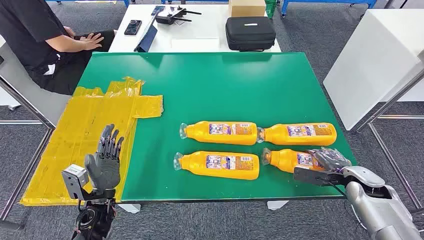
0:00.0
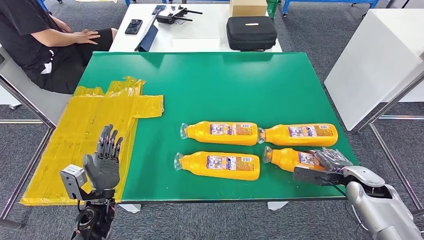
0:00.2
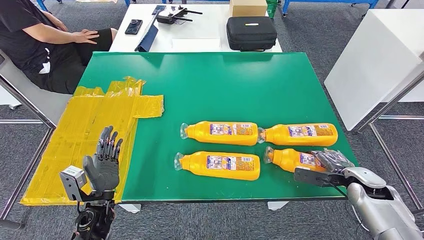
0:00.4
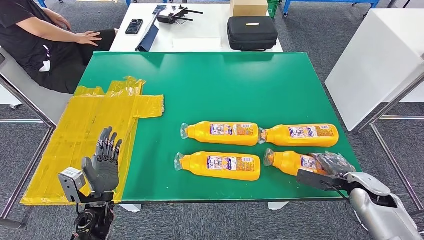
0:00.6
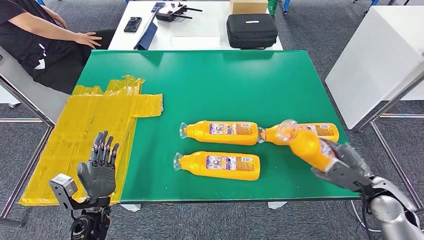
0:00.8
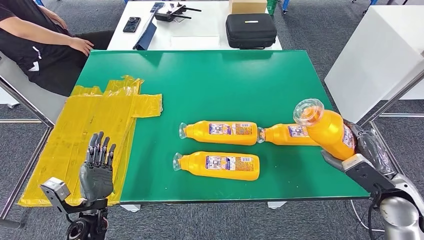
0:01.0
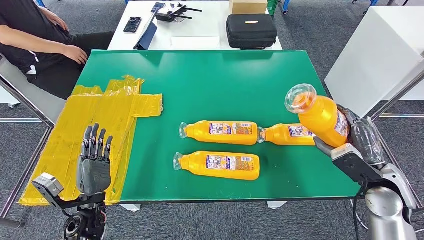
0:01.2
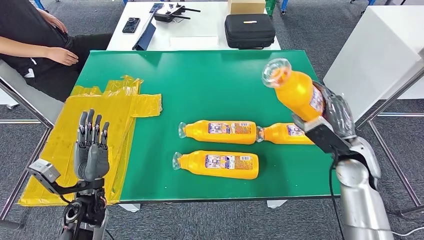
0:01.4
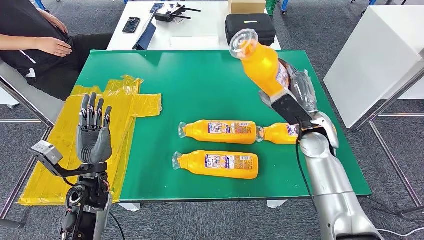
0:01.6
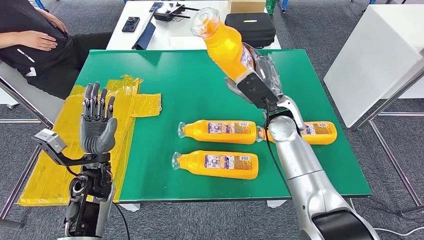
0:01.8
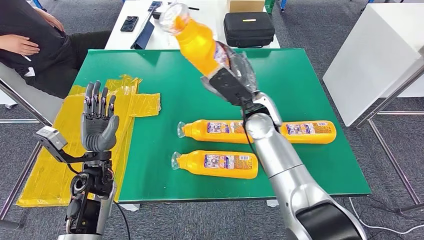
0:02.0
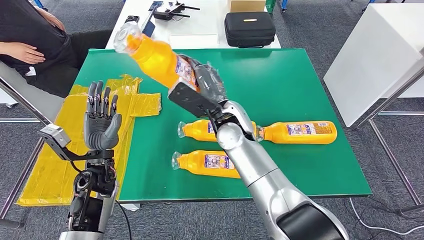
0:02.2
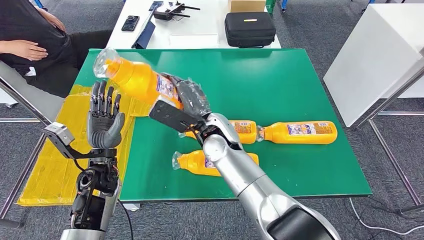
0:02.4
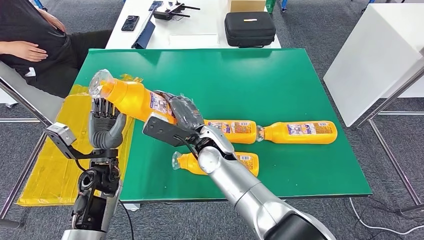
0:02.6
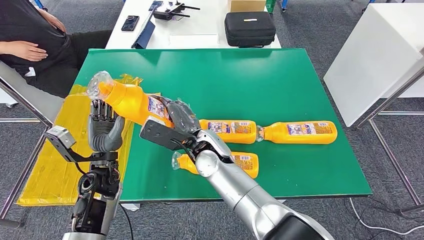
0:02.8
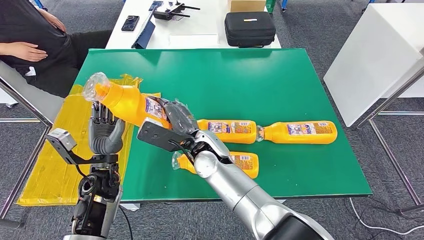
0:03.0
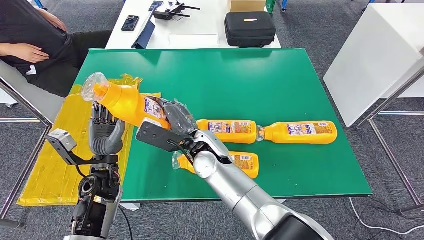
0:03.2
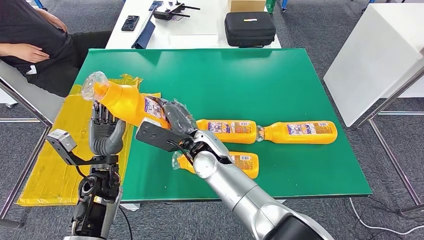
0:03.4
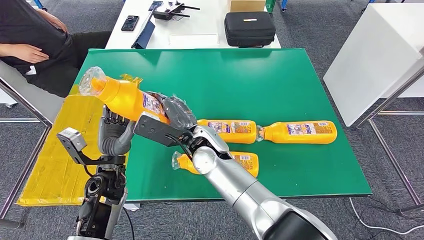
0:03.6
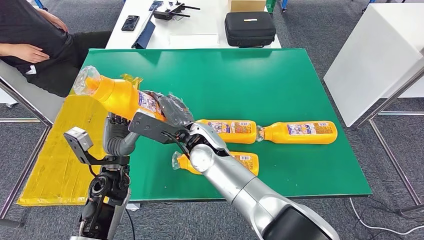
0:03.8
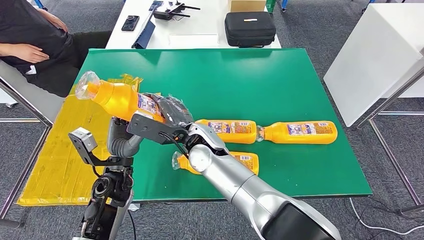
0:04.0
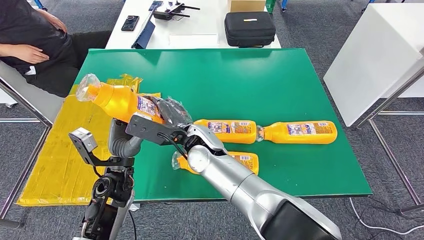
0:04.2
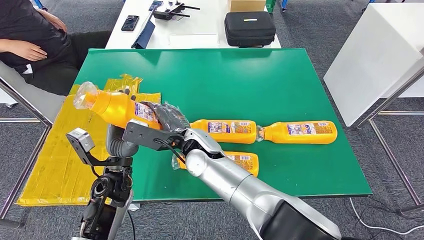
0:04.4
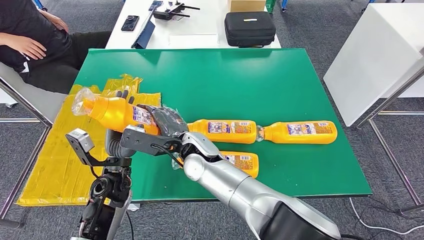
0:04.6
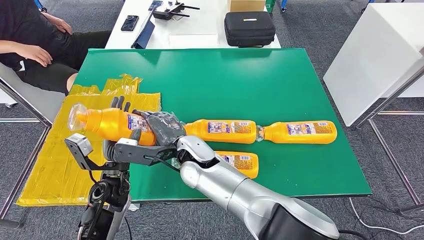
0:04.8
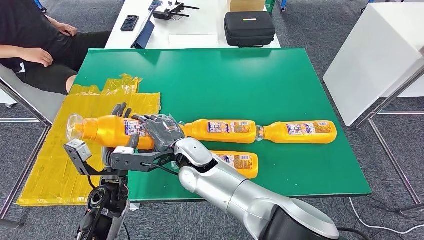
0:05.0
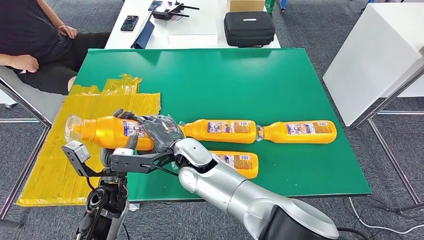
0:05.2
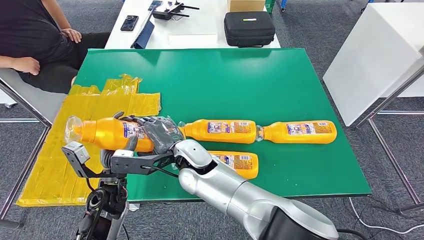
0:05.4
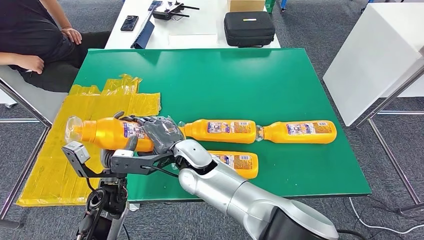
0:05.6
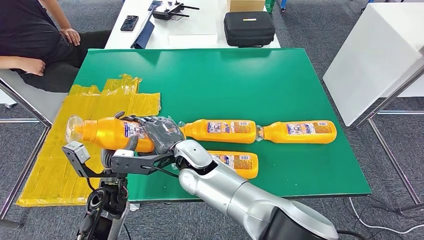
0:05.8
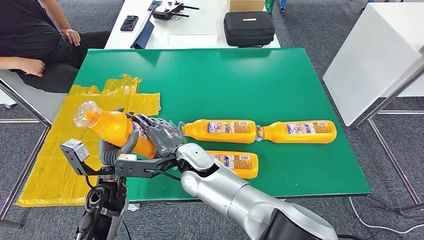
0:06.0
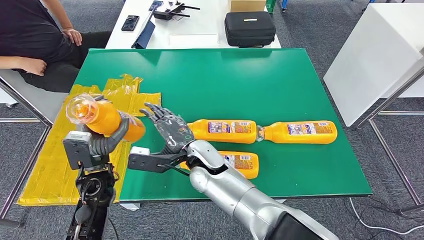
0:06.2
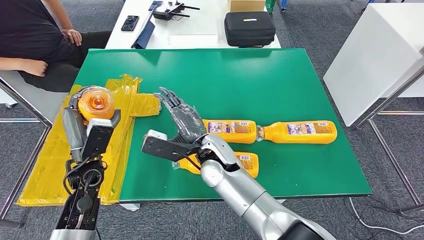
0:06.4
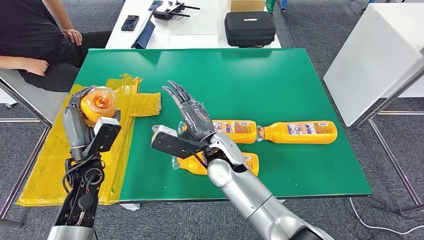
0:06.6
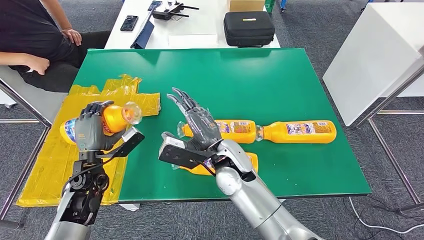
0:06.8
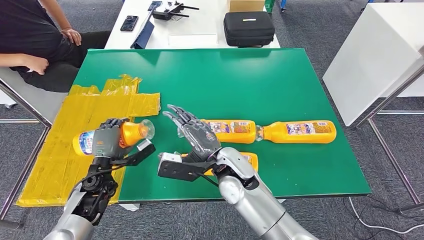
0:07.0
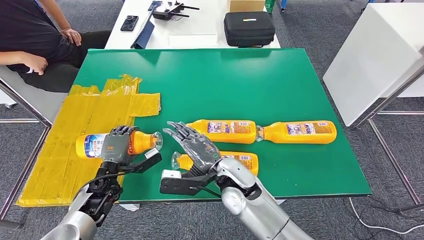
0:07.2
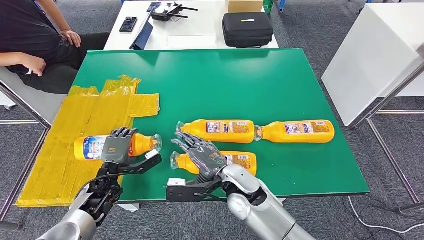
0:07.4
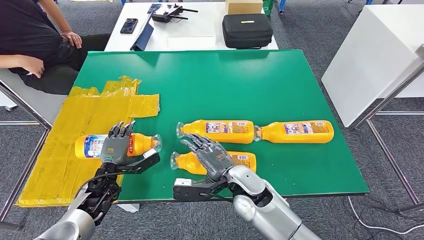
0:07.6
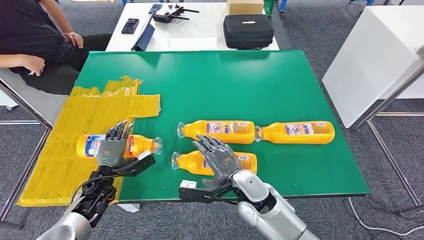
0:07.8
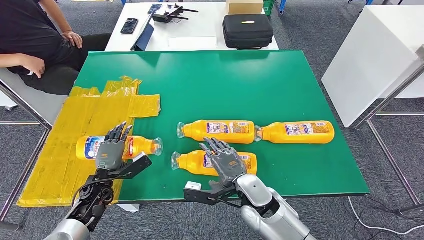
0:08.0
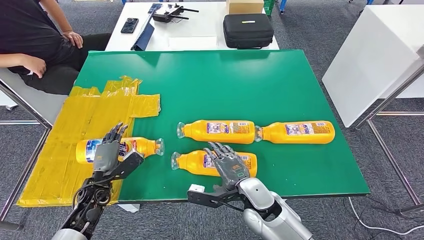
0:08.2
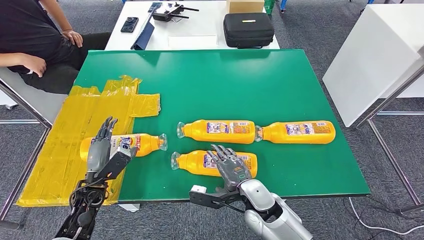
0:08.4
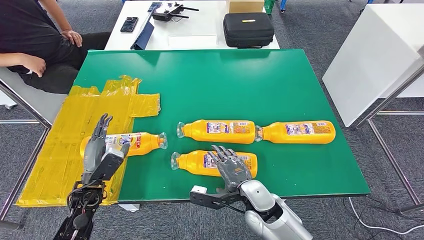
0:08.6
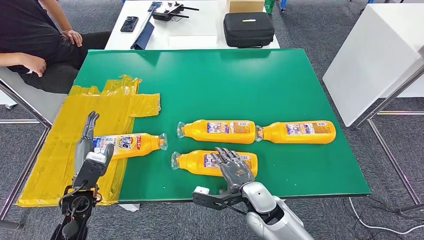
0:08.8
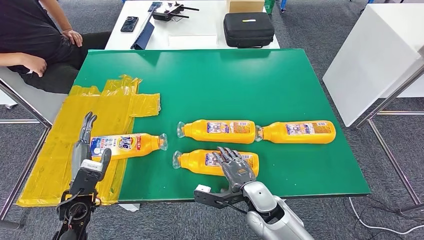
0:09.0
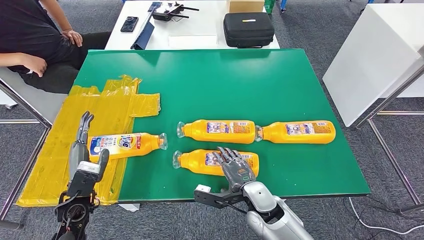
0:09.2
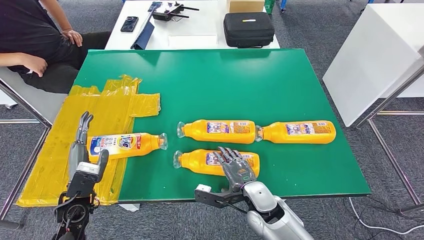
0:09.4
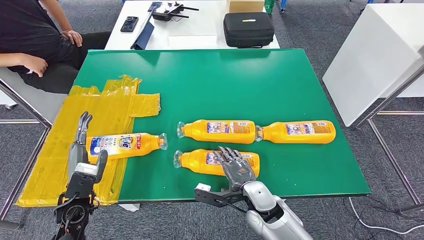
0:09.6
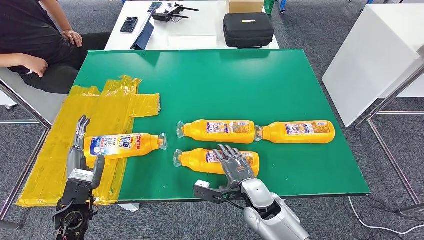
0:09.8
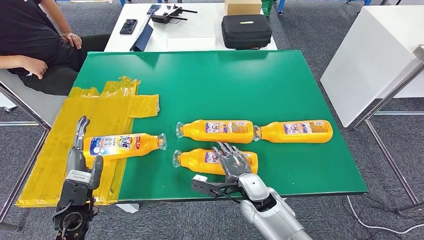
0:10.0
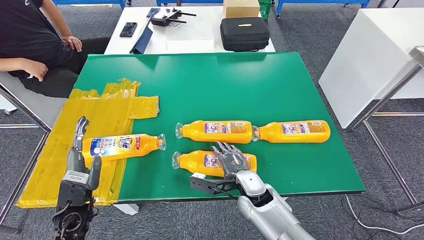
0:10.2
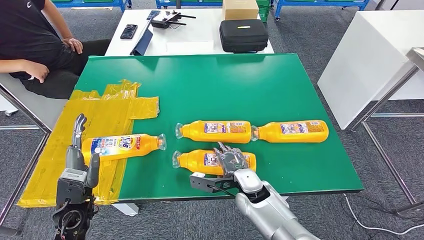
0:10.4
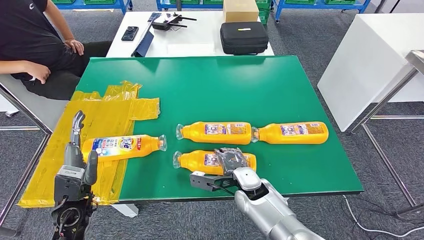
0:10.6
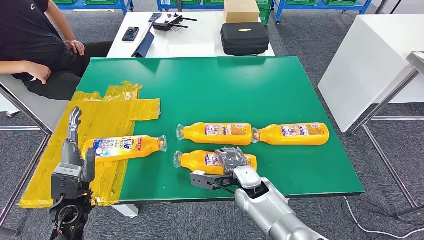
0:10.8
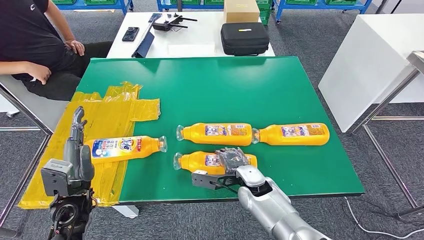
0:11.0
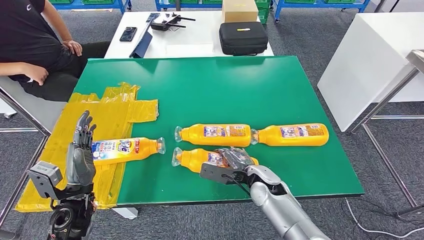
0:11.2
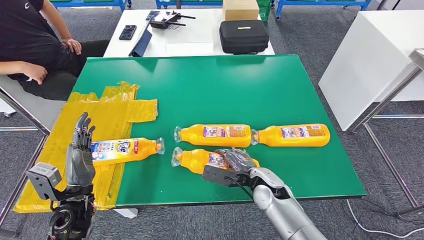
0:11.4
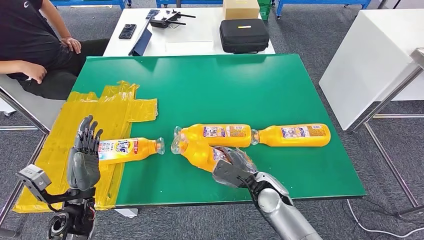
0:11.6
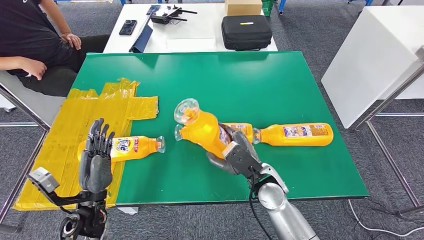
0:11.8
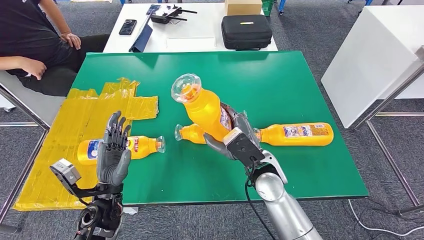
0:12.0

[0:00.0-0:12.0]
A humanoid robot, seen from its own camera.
Step, 0:00.0 to 0:01.8: Take the fast-moving consumer goods bottle from the table.
Step, 0:02.6 to 0:08.4: Flip the fast-moving consumer goods bottle to the front side.
Step, 0:09.2 to 0:11.8: Pick up the fast-moving consumer goods bottle from the table.
0:03.0 to 0:04.4: There are only small adjustments of the hands.
0:07.6 to 0:09.0: The right hand shifts roughly 5 cm downward; the left hand goes roughly 10 cm backward and upward.

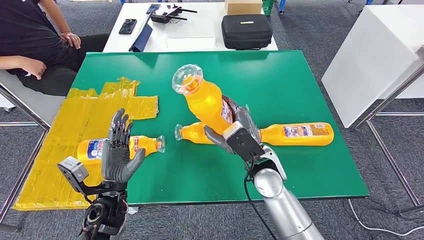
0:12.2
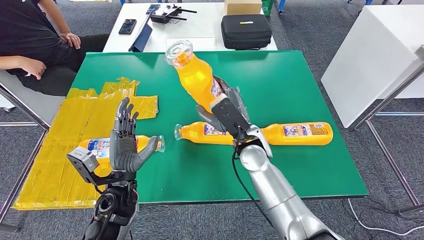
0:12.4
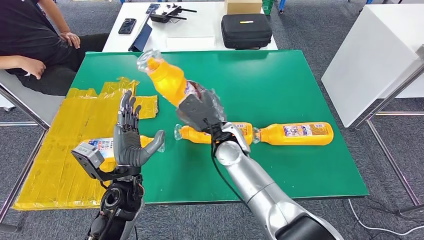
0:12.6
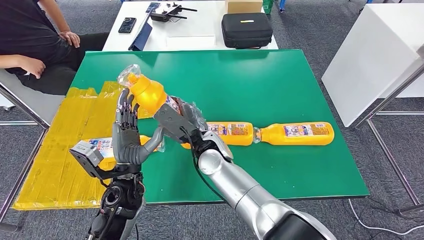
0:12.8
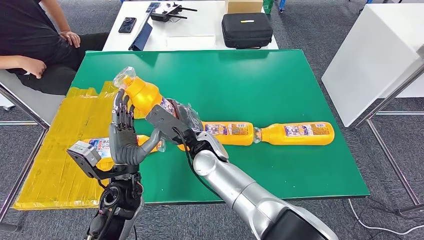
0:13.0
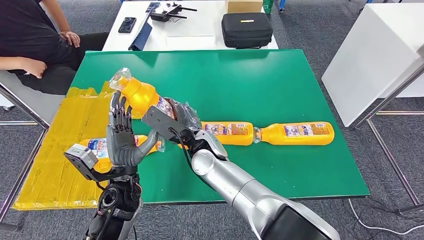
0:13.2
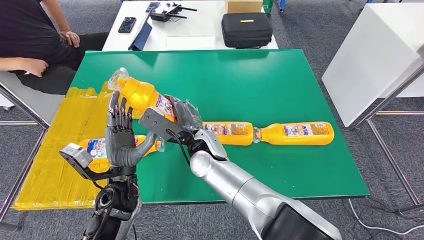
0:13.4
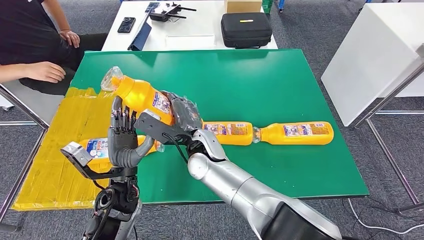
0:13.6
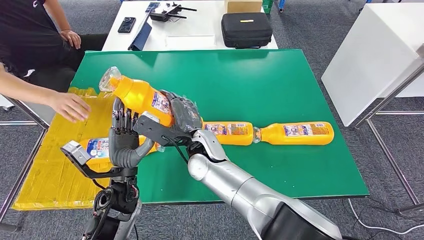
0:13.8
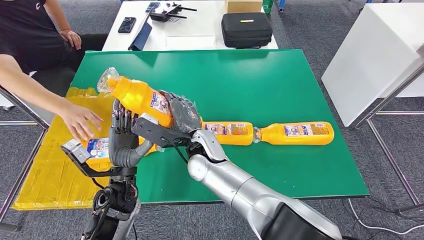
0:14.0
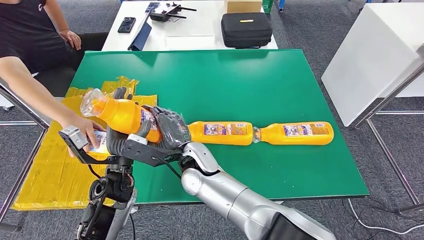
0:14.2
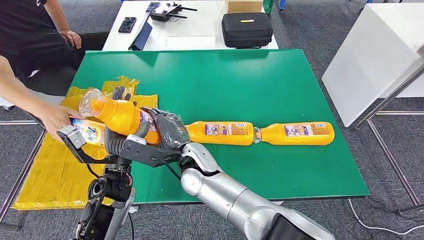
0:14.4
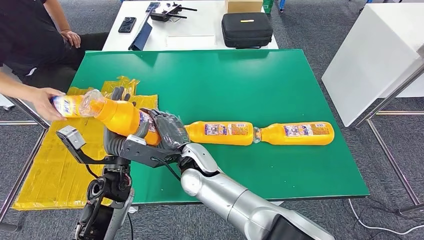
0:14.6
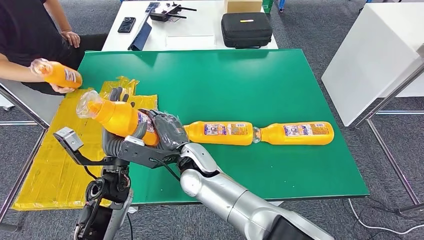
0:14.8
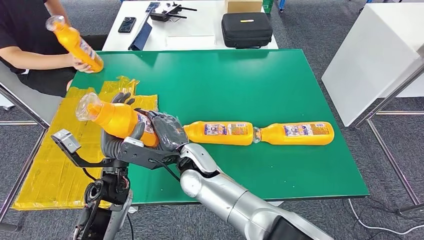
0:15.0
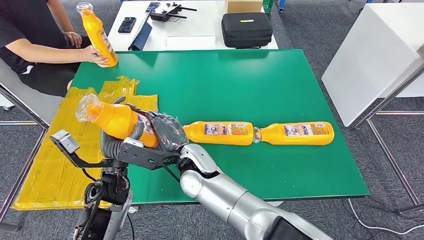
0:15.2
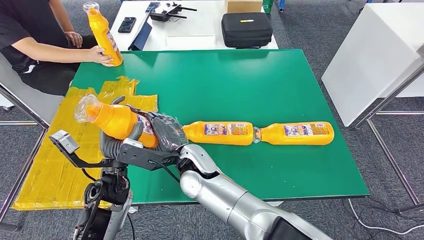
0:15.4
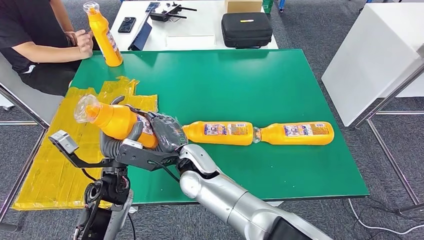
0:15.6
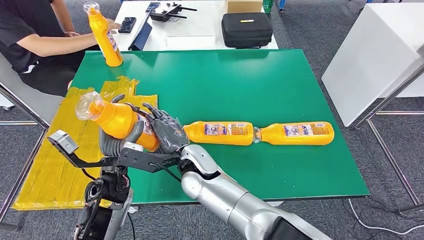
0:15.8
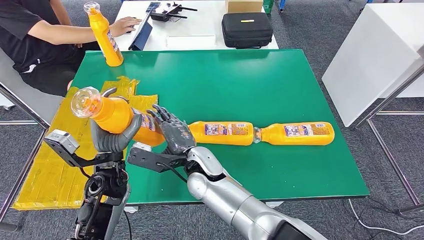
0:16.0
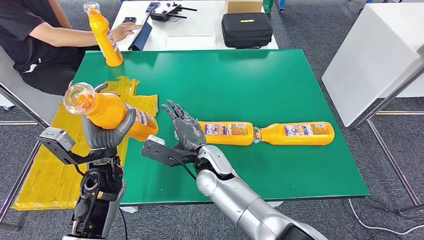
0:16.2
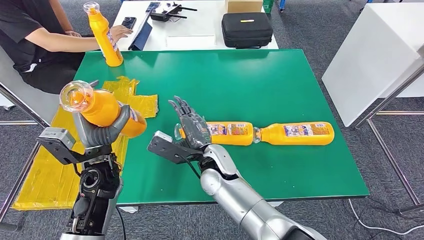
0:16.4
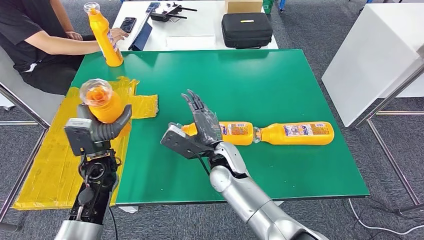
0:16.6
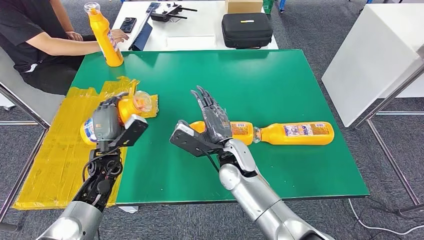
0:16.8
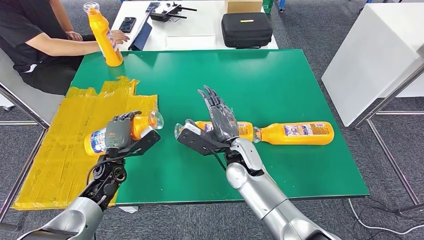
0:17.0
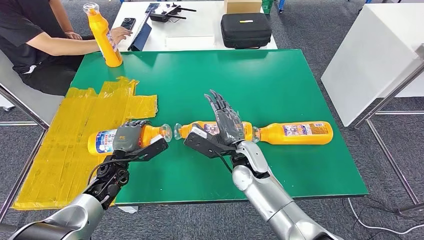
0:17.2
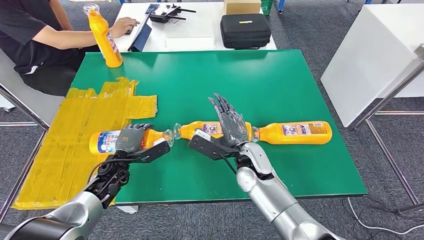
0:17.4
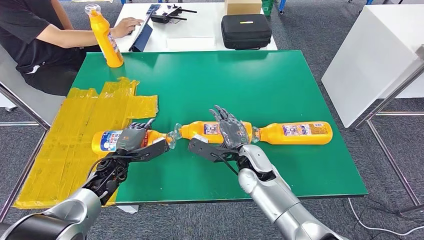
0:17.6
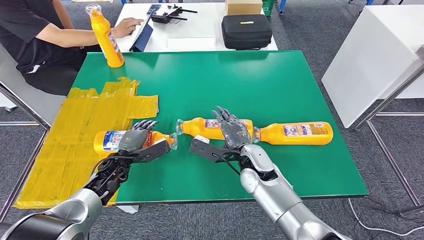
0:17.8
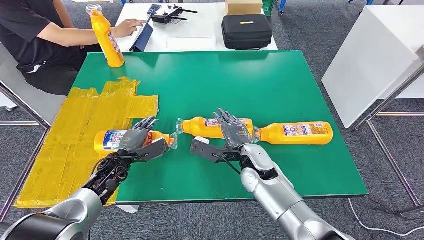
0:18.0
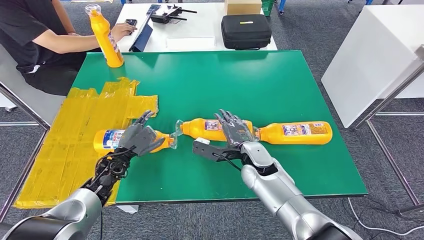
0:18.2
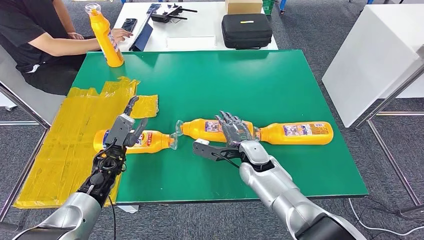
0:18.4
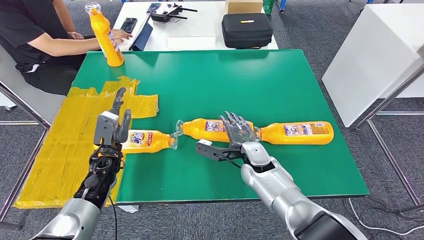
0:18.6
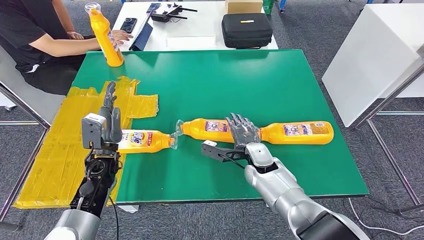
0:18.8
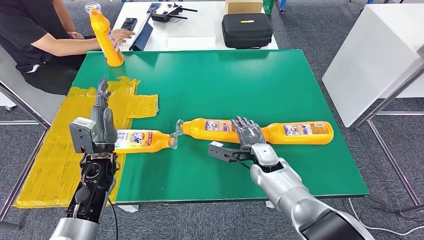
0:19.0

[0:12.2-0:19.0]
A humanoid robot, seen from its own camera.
Step, 0:12.8 to 0:18.6: Flip the fast-moving consumer goods bottle to the front side.
0:17.6 to 0:19.0: The right hand ends up approximately 10 cm from where it was; the left hand shifts approximately 10 cm upward.
